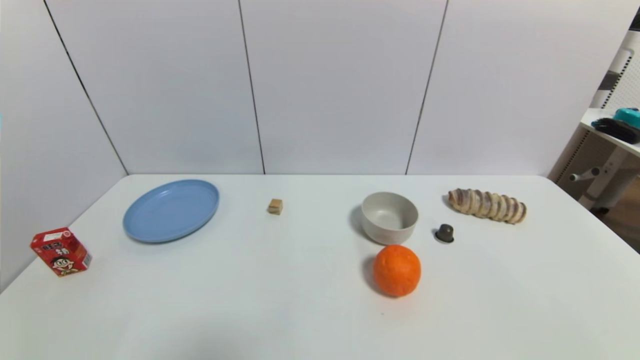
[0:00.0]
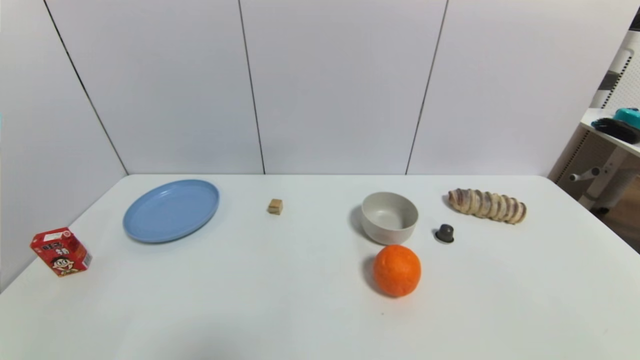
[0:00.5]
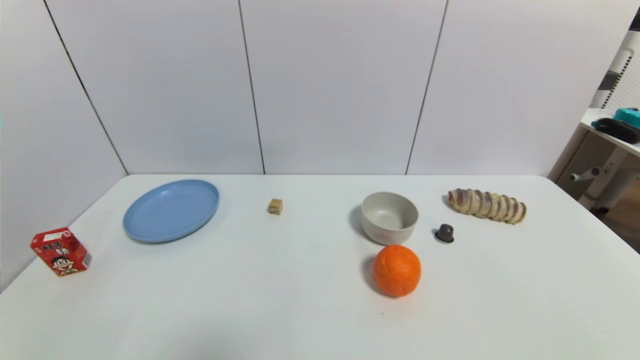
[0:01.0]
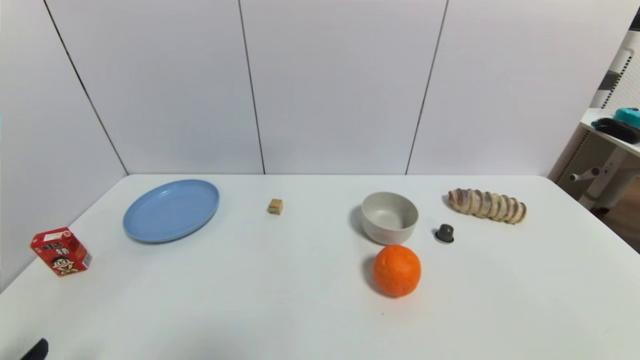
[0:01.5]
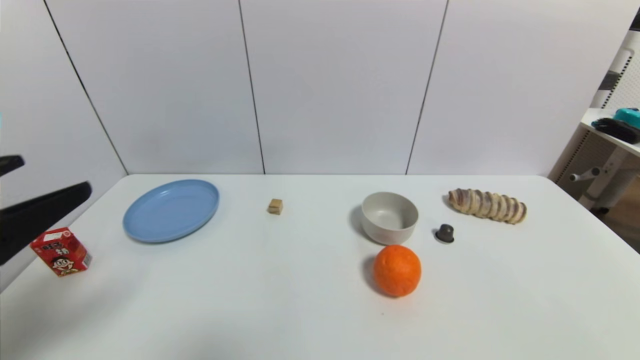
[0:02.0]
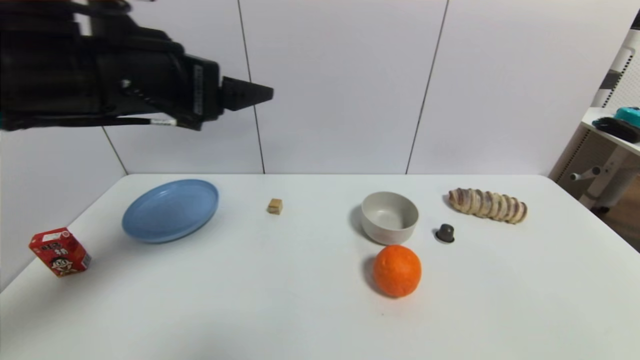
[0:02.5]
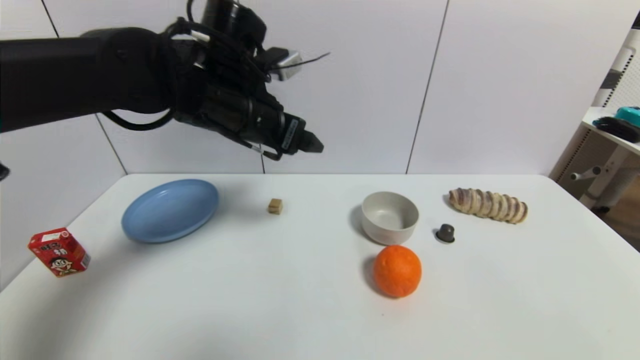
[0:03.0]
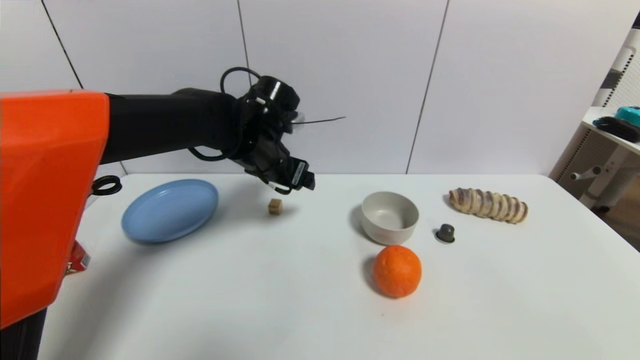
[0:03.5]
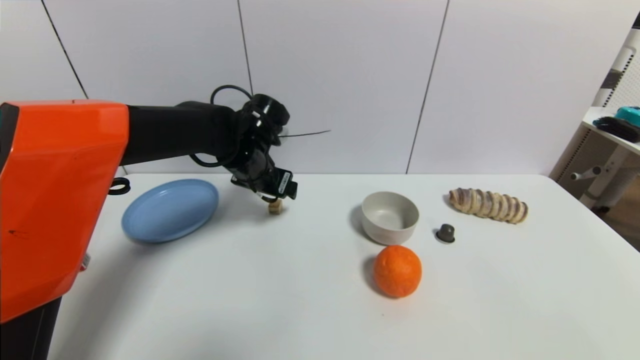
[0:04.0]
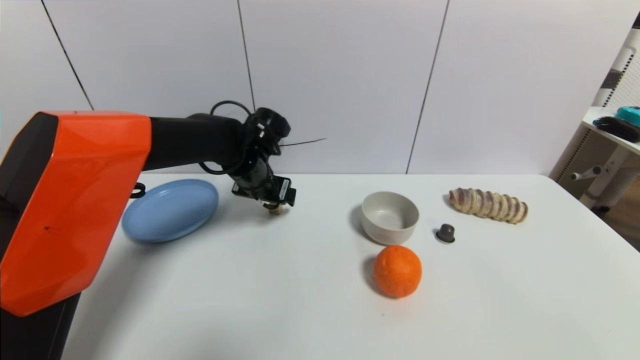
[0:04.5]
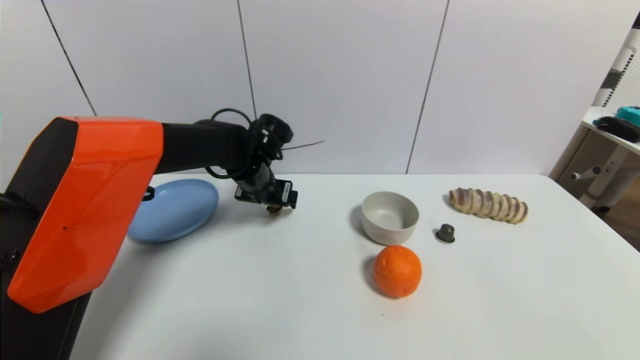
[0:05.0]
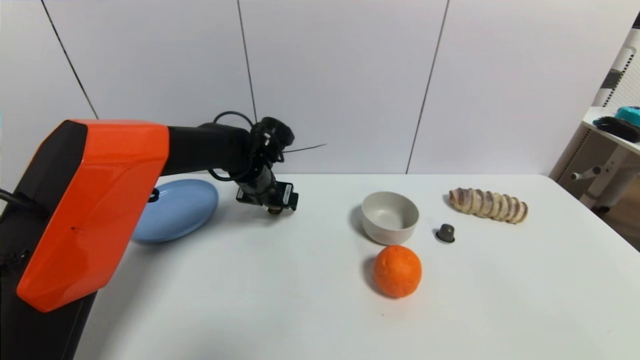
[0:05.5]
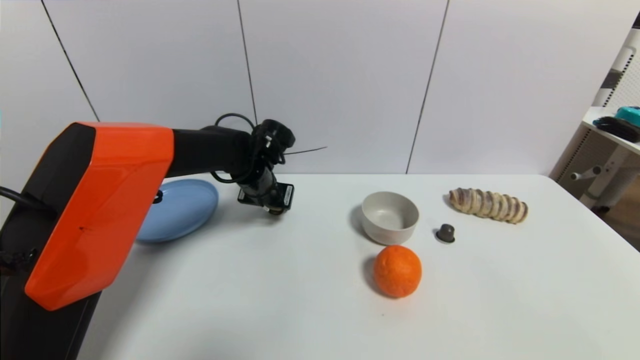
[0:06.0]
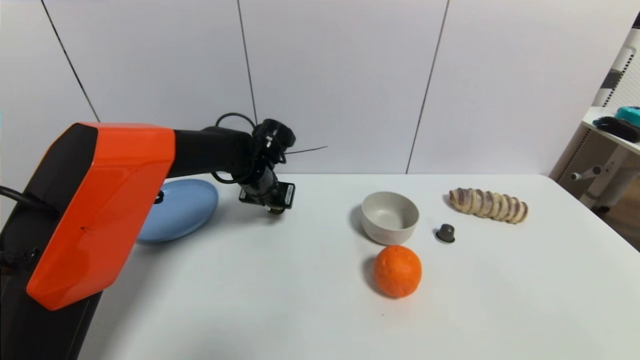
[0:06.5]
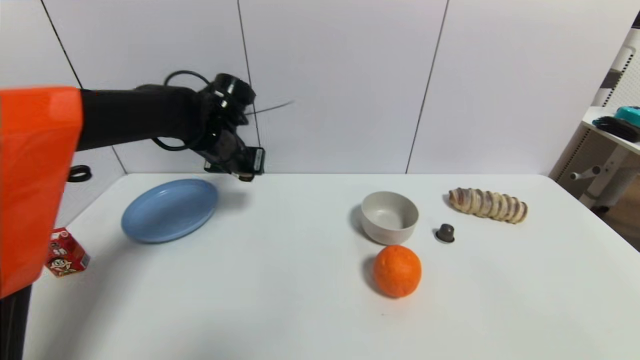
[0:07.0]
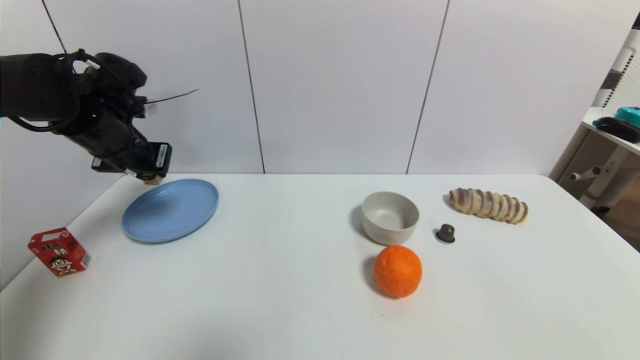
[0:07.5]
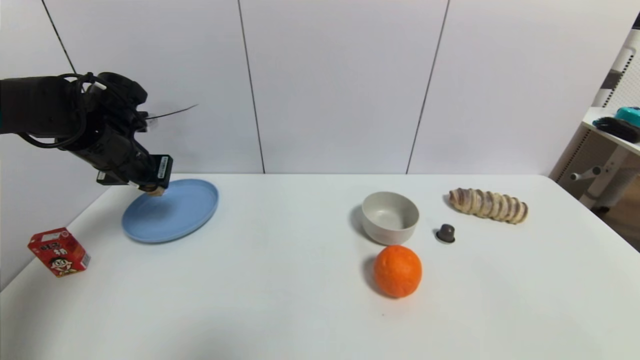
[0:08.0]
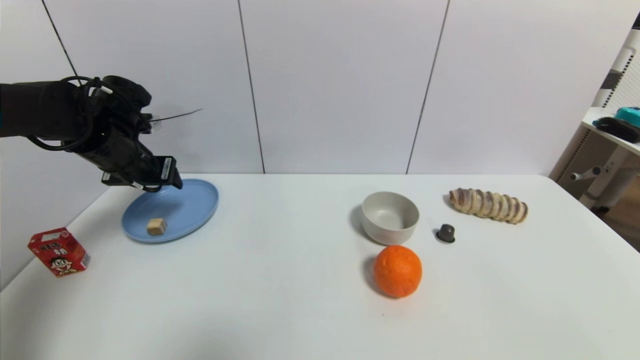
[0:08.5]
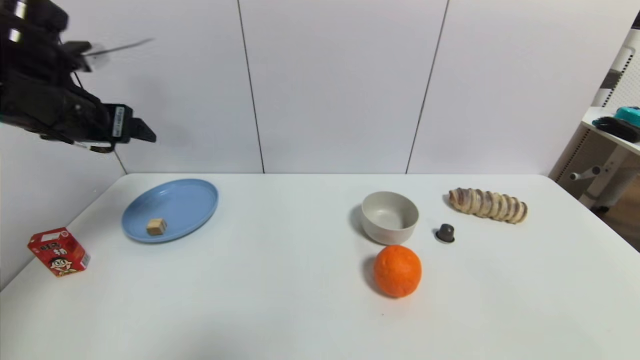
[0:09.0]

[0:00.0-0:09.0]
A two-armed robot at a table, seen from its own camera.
Task of the whole recording: use a gripper to pick the target object and place on the blue plate.
Step, 0:00.0 to 0:06.0: Grasp the square wooden block with the left gripper.
Step, 0:06.5 to 0:08.0: Place the square wooden block on the blue plate with the left gripper.
0:00.0 to 0:02.0: The left gripper travels upward and forward by roughly 25 cm.
0:02.0 to 0:04.5: The left gripper travels forward and to the right by roughly 35 cm.
0:04.5 to 0:07.0: The left gripper goes some 10 cm to the left and upward, and closes.
0:07.0 to 0:09.0: The left gripper travels to the left, backward and upward by roughly 20 cm, and opens its fingers.

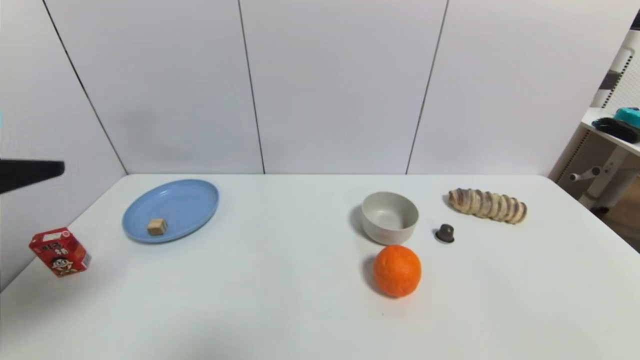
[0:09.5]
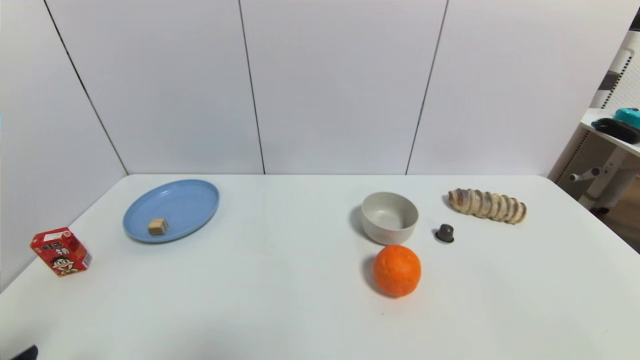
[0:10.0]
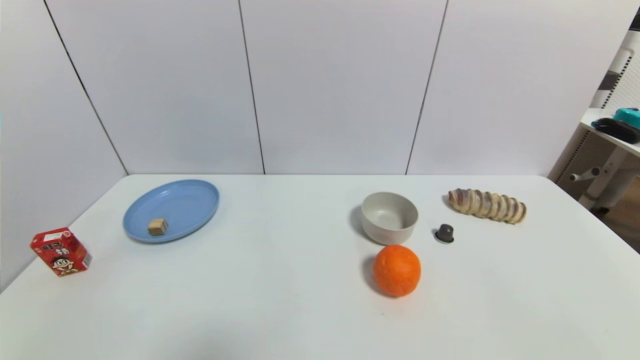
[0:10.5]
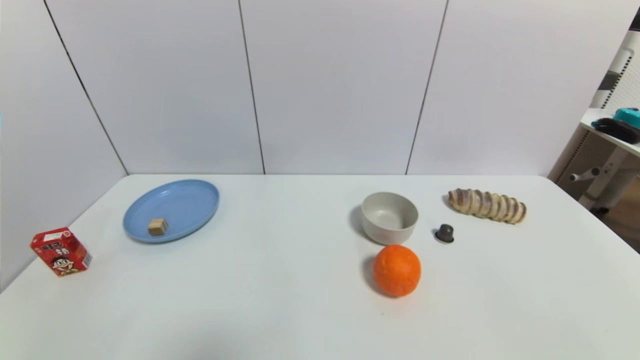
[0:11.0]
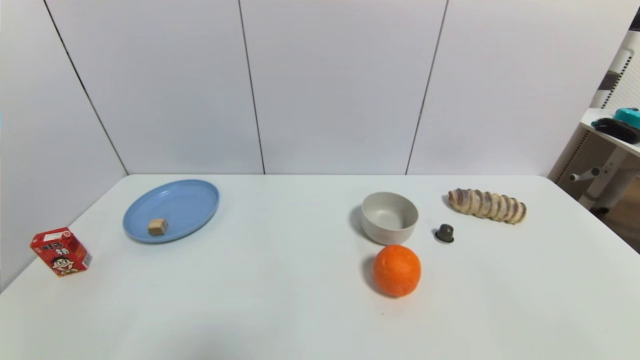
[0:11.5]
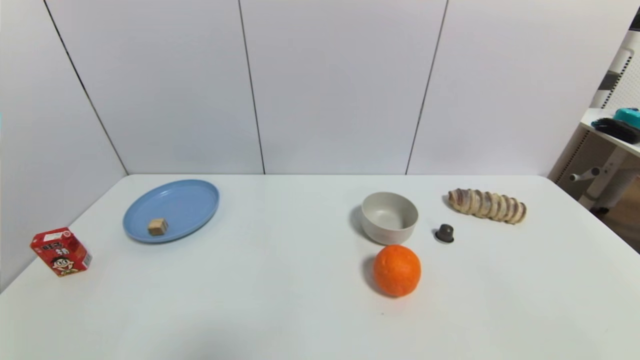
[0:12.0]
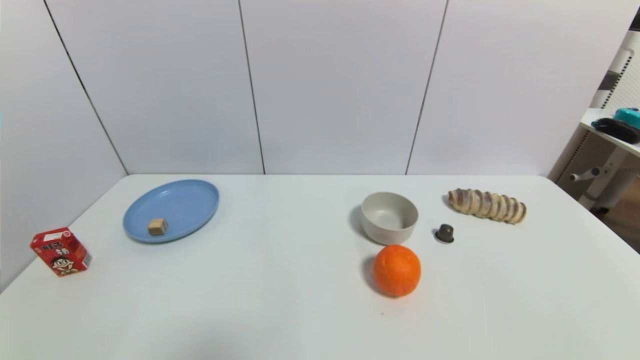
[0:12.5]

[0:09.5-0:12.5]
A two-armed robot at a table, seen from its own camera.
Task of the whole recording: use a gripper to pick the target object and place on the blue plate.
0:09.5 to 0:11.0: The left gripper goes some 30 cm downward and backward.
0:11.0 to 0:12.5: Neither gripper changes place.
